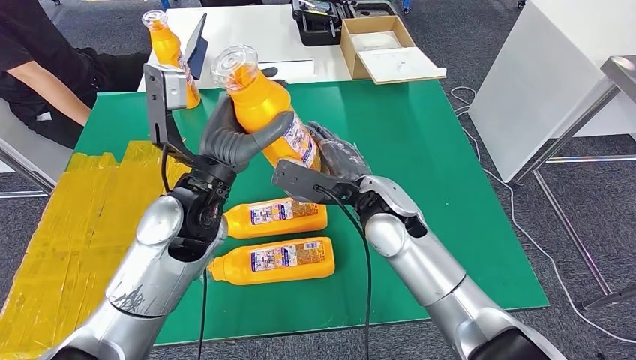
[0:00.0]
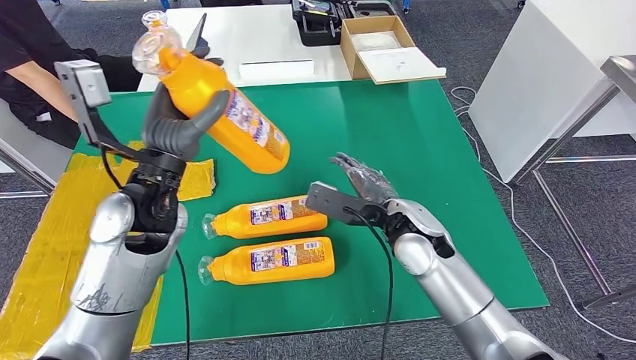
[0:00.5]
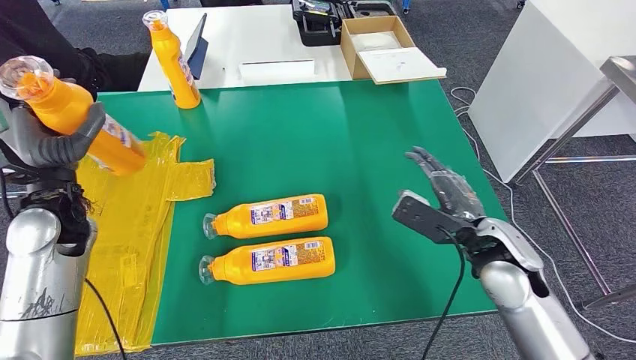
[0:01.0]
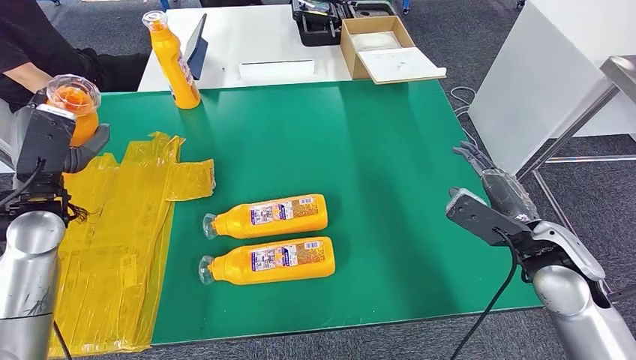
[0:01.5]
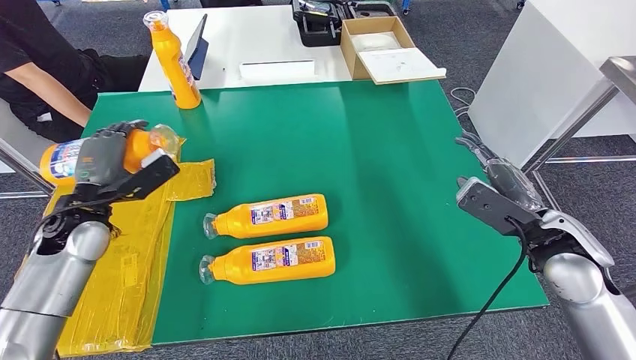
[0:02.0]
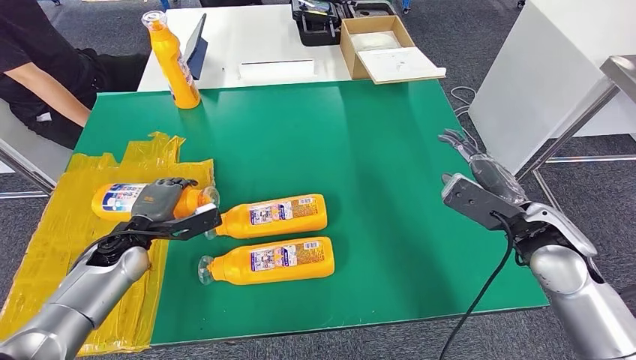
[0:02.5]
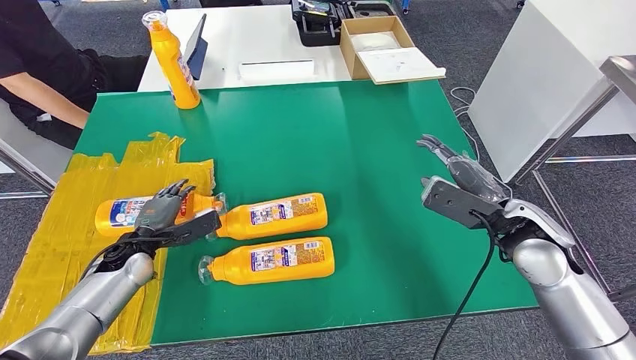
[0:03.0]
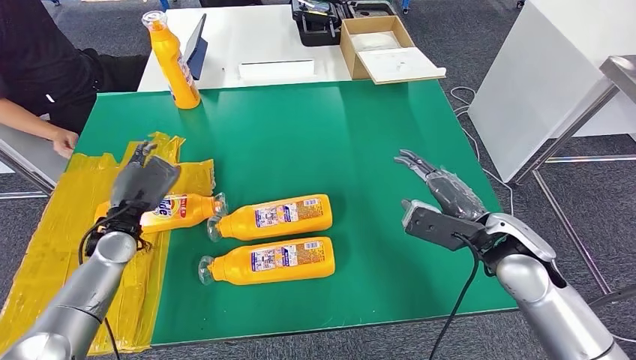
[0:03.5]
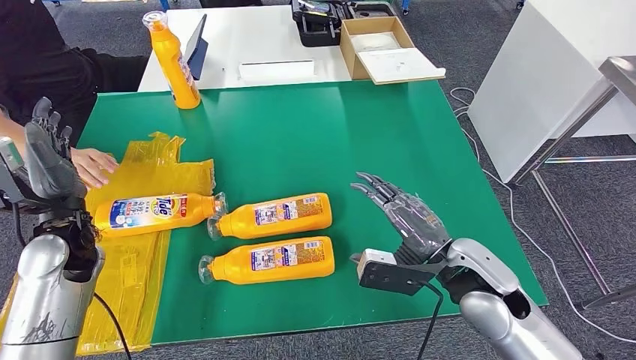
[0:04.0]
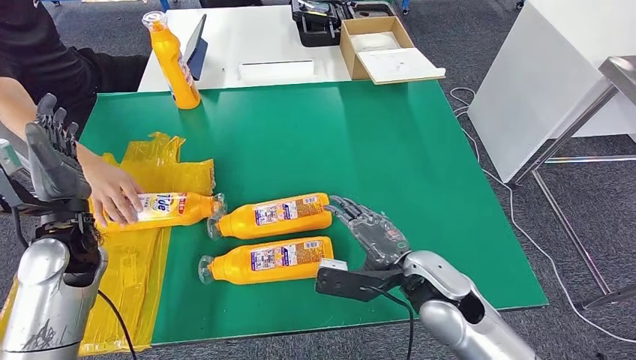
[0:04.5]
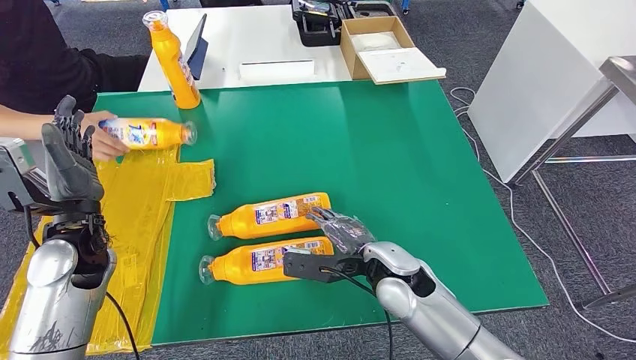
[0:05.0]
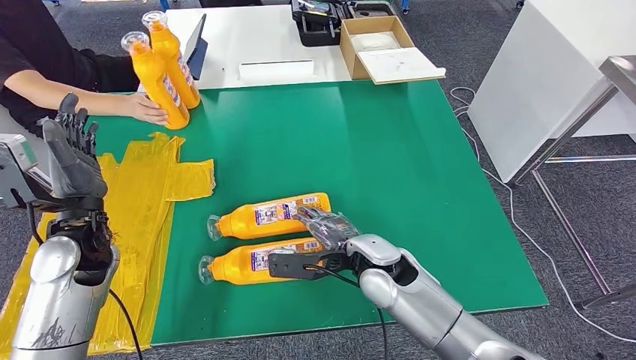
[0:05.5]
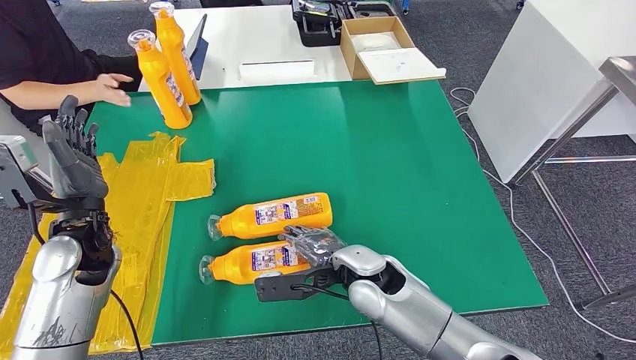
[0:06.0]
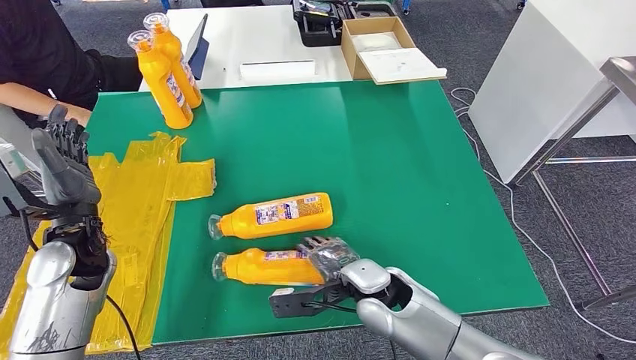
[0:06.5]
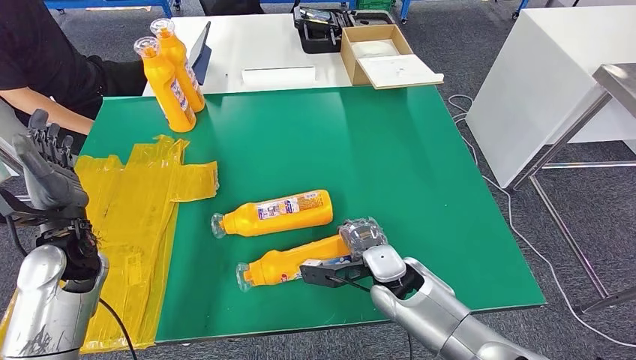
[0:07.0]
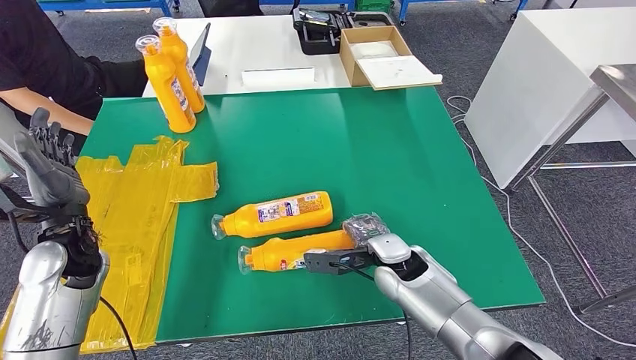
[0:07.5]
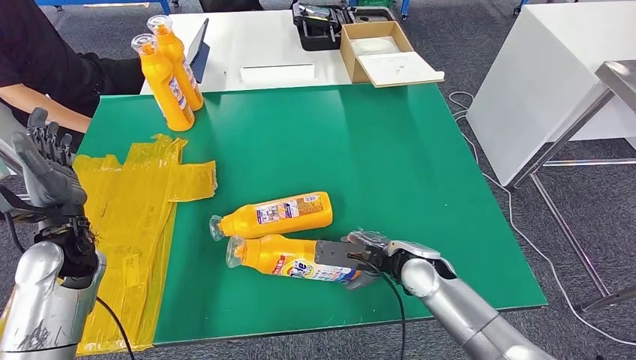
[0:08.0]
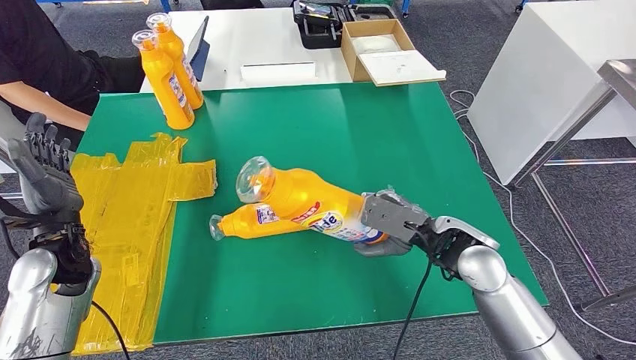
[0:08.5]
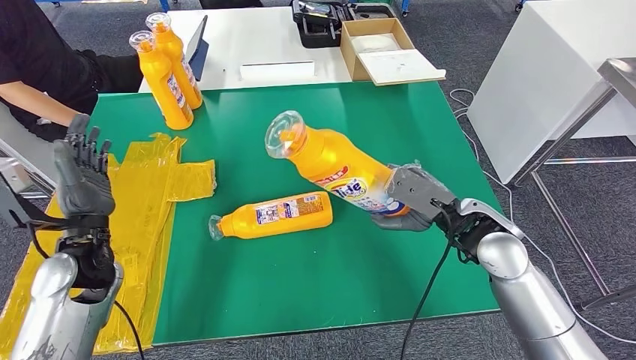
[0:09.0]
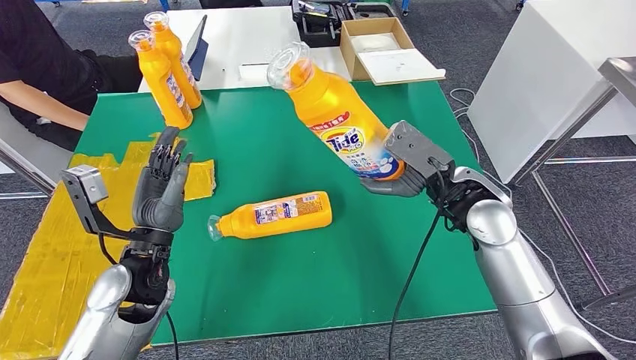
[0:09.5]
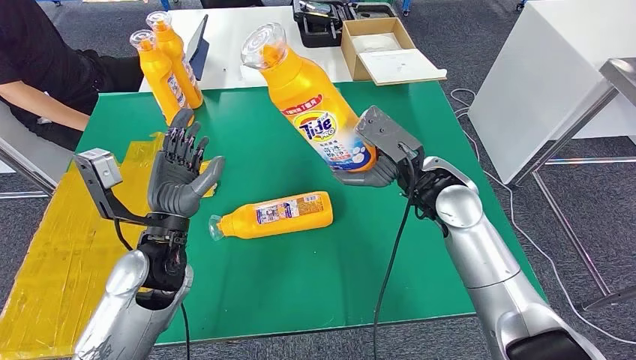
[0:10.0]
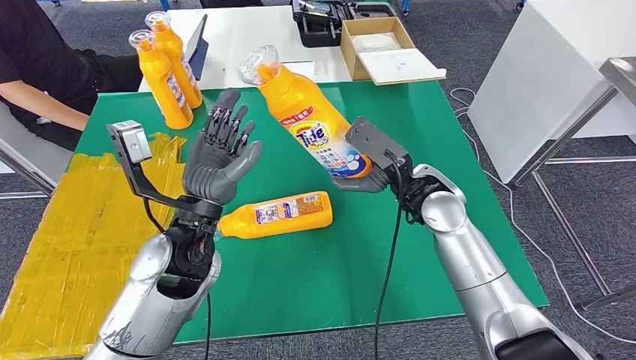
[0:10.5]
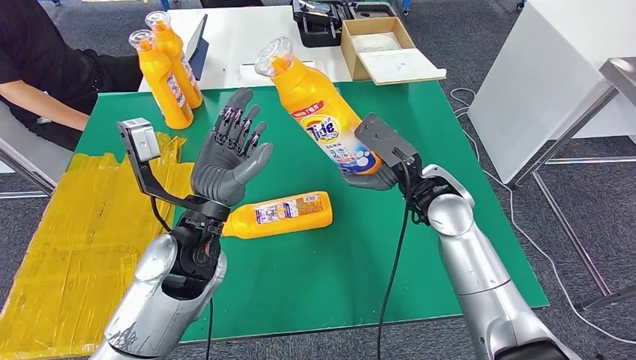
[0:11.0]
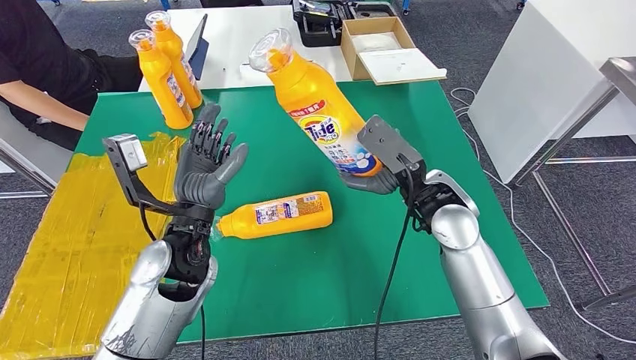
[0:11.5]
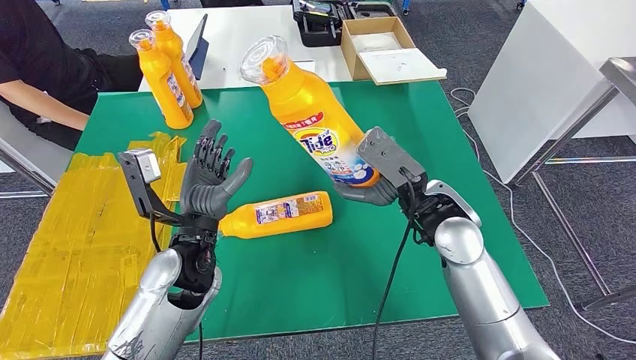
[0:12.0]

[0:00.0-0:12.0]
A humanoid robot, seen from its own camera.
Step, 0:00.0 to 0:03.0: Flip the fast-moving consumer goods bottle to the front side.
Step, 0:06.5 to 0:10.0: Pick up the fast-moving consumer goods bottle from the table.

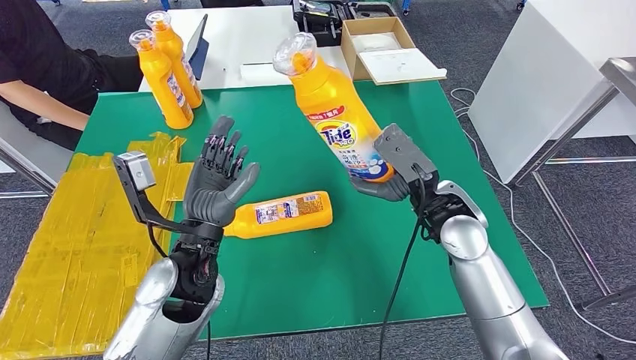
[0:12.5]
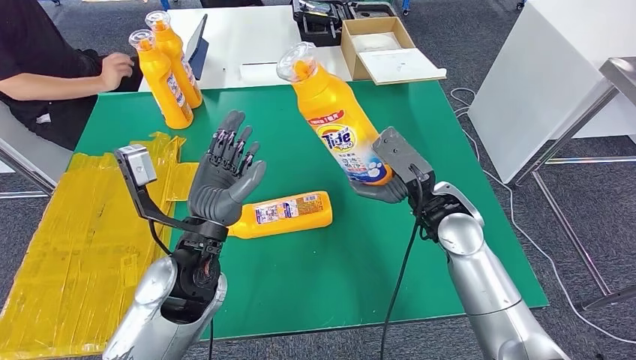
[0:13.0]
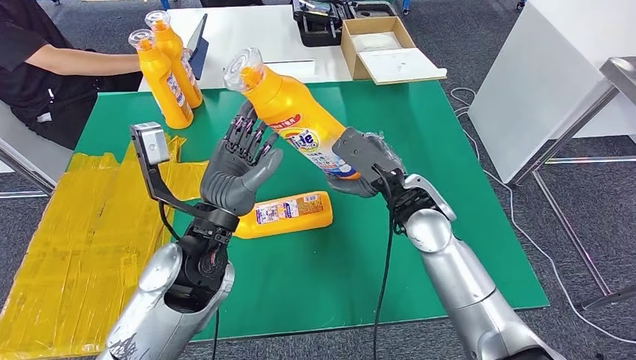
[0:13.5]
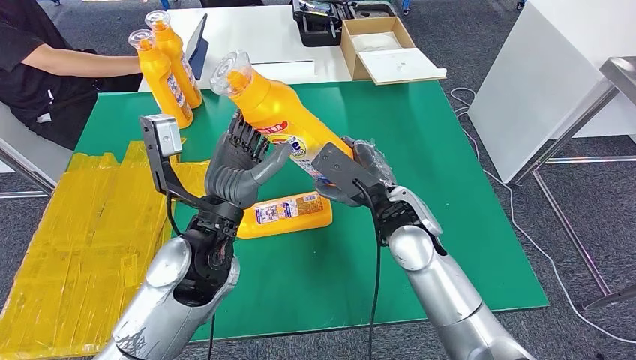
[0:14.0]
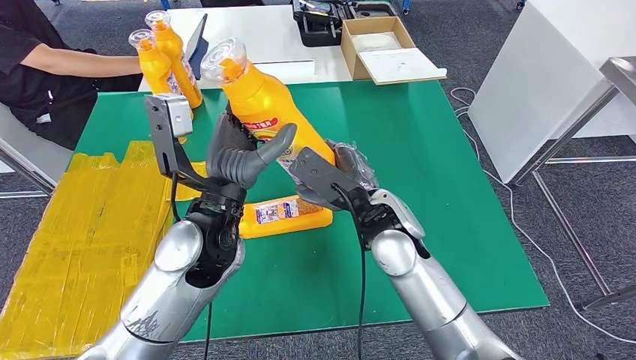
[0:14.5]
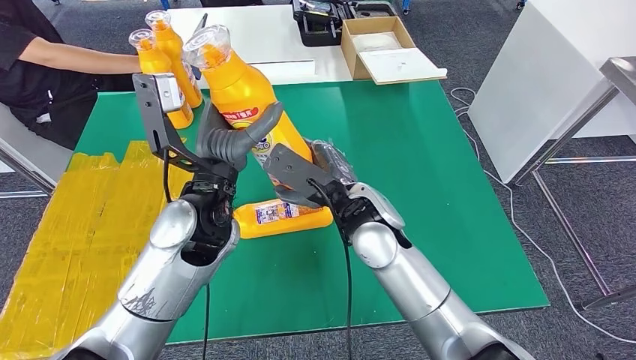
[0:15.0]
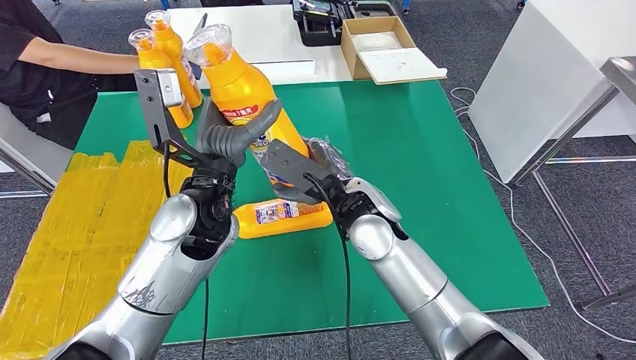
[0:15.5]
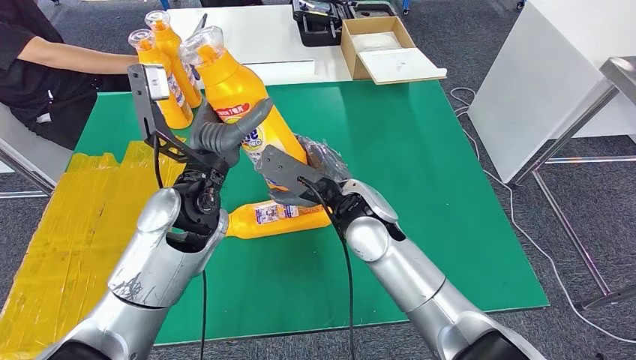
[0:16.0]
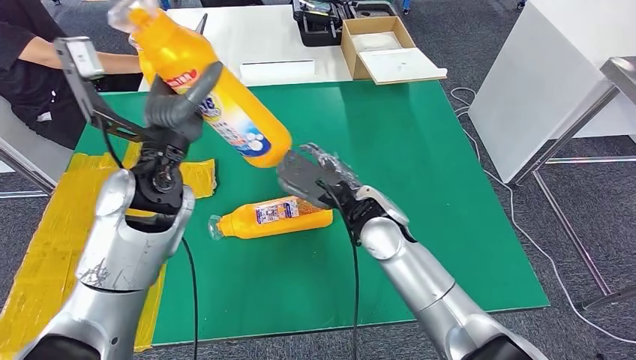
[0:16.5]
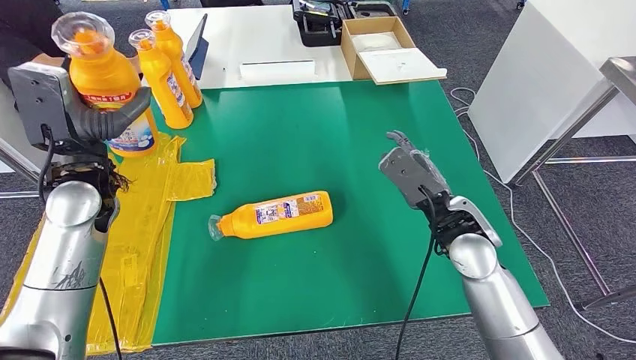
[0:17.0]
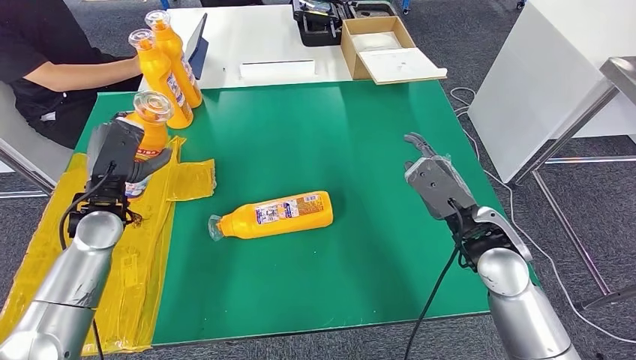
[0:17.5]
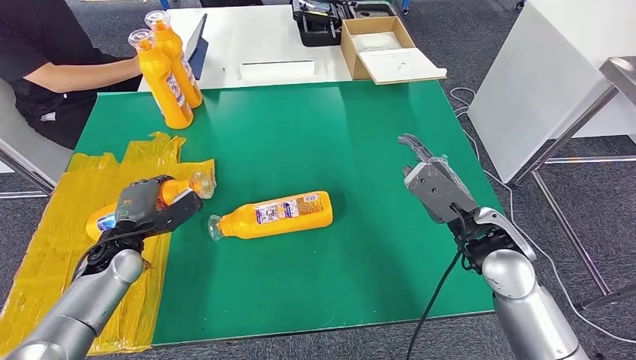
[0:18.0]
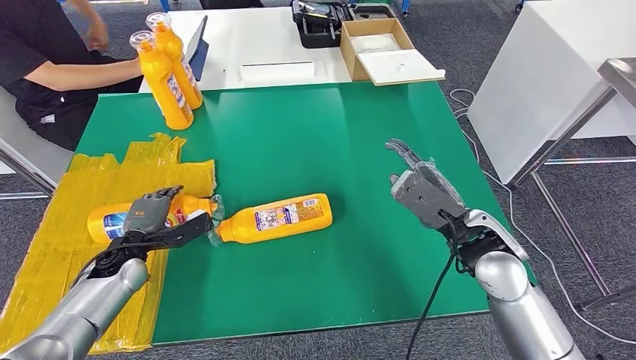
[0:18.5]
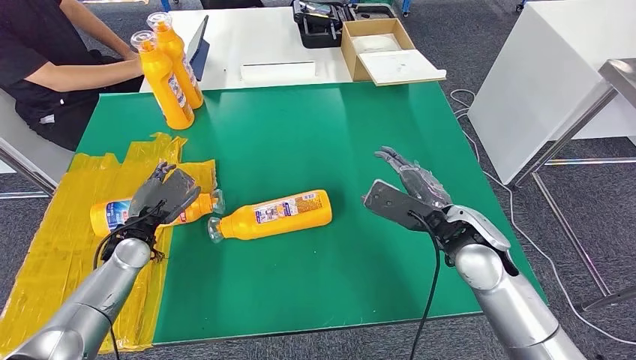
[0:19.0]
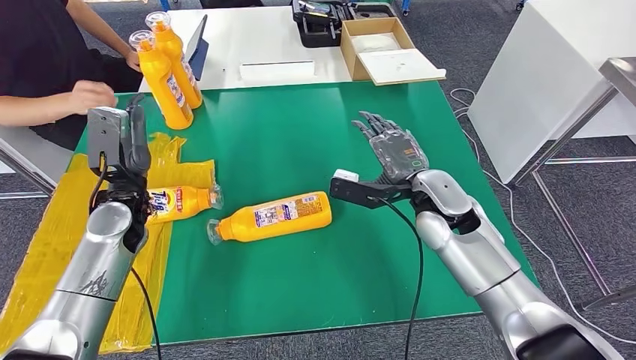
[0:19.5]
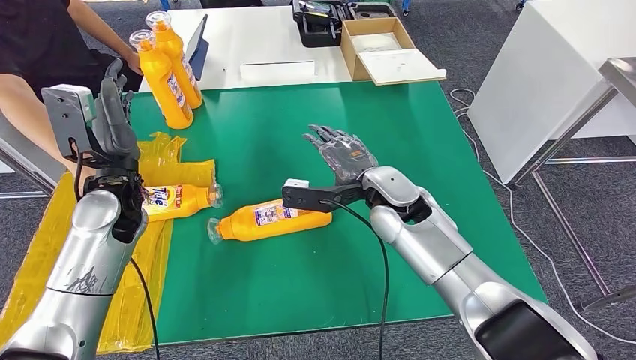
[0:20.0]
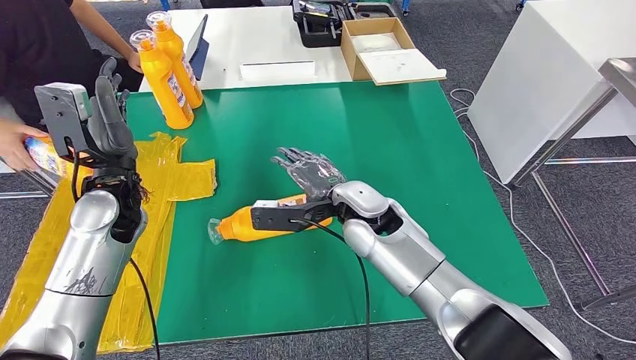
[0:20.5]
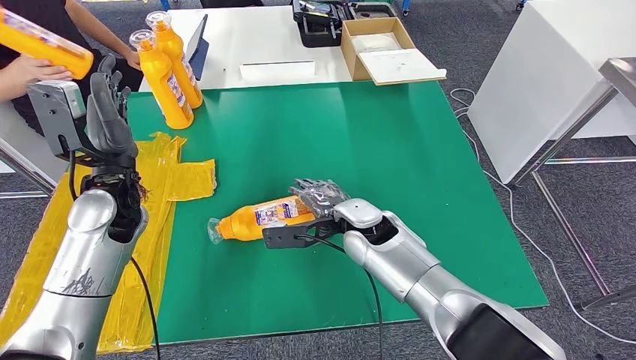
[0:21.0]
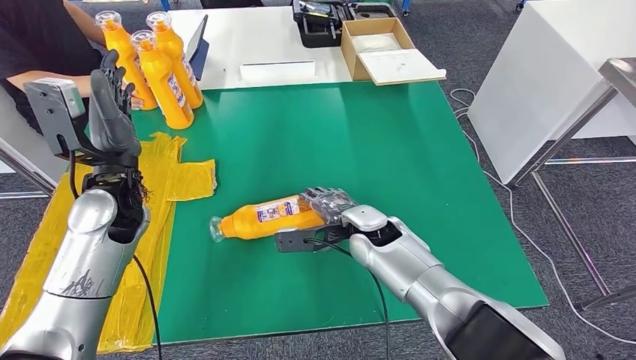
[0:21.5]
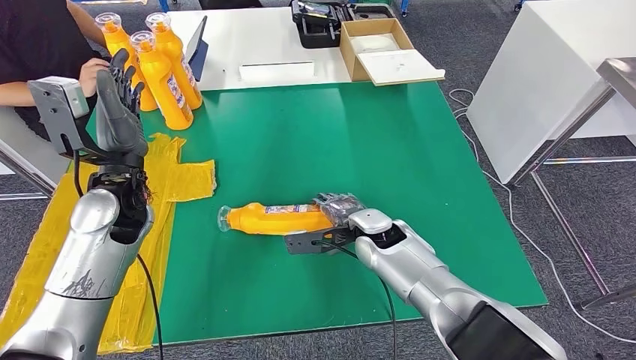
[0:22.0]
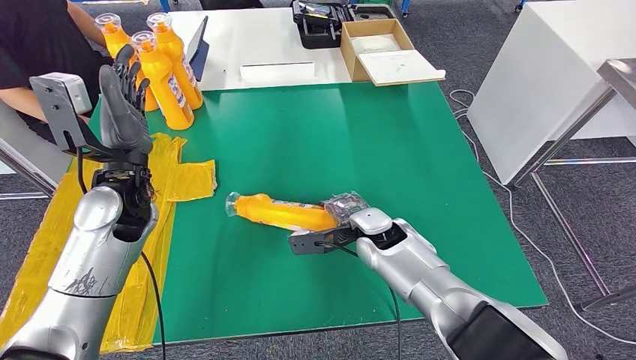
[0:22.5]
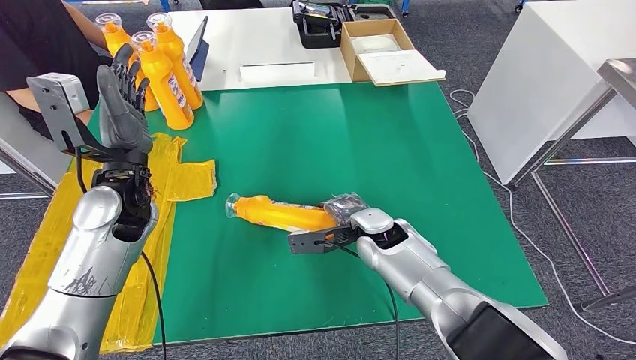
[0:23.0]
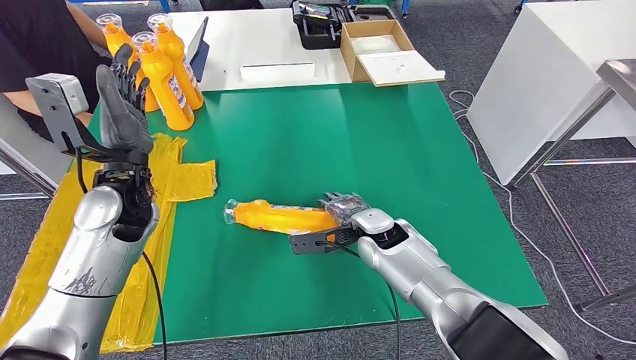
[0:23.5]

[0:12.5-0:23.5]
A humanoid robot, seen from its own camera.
Step, 0:12.5 to 0:20.5: Flip the fast-moving consumer goods bottle to the front side.
0:14.5 to 0:16.0: The left hand shifts by roughly 5 cm.
0:20.0 to 0:21.5: The right hand heads downward, covering roughly 10 cm.
0:21.5 to 0:23.5: There are only small adjustments of the hands.
